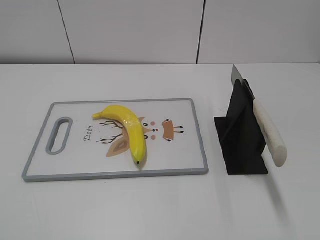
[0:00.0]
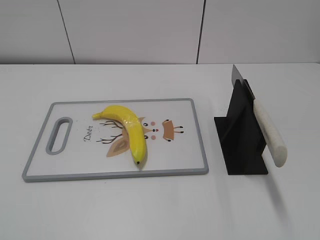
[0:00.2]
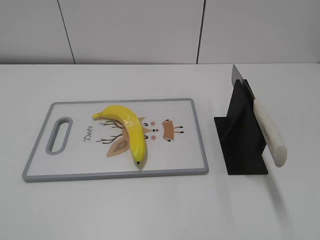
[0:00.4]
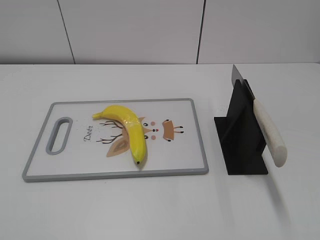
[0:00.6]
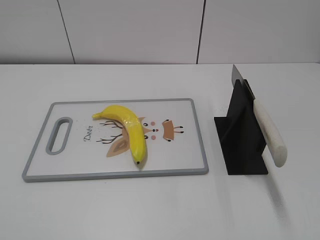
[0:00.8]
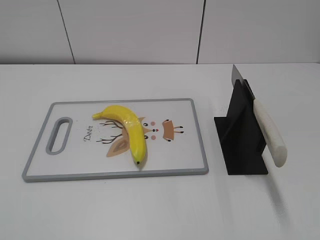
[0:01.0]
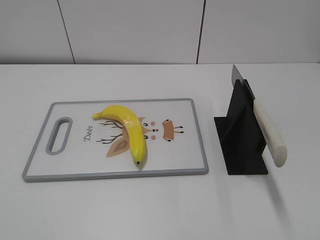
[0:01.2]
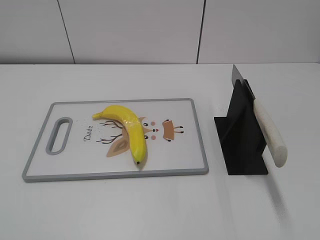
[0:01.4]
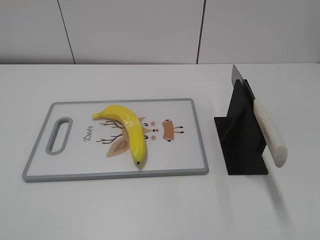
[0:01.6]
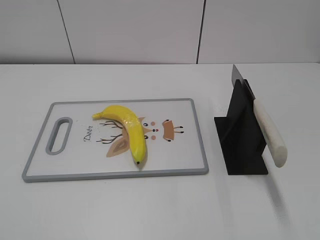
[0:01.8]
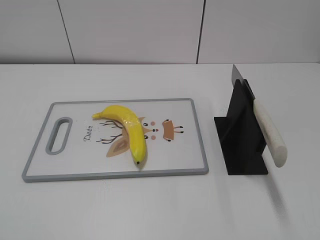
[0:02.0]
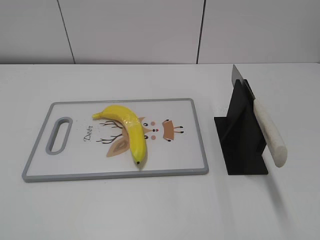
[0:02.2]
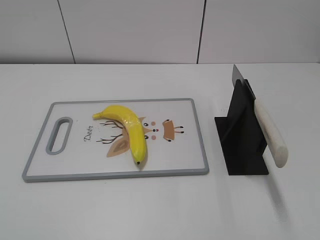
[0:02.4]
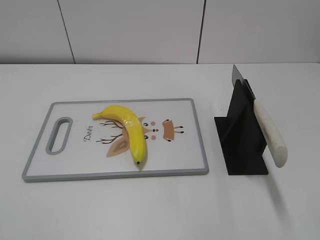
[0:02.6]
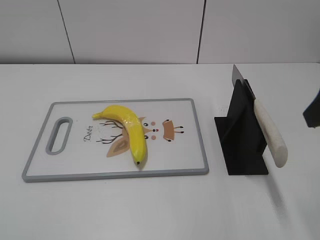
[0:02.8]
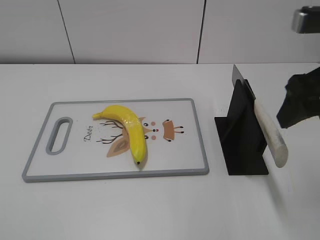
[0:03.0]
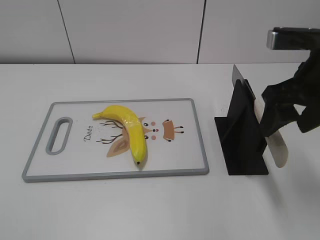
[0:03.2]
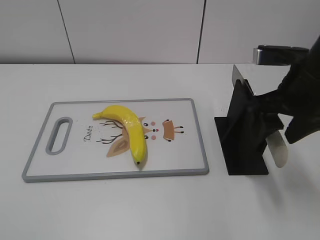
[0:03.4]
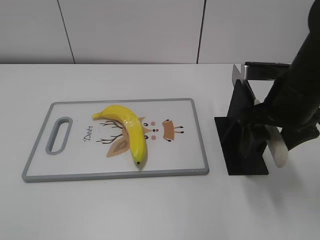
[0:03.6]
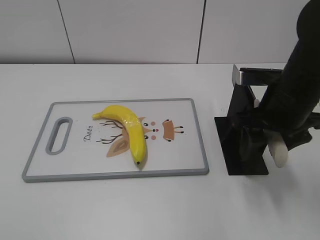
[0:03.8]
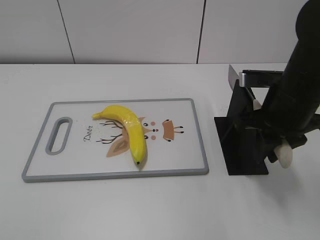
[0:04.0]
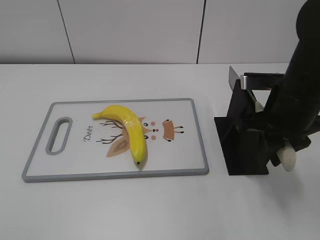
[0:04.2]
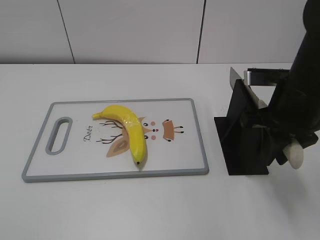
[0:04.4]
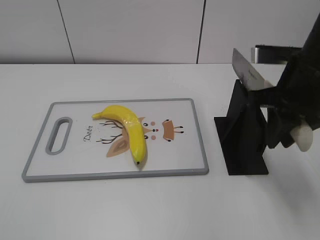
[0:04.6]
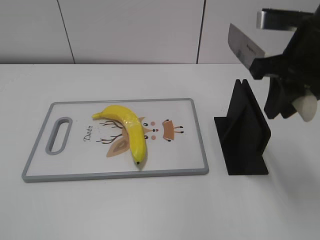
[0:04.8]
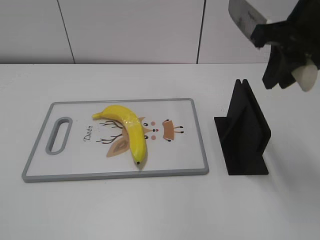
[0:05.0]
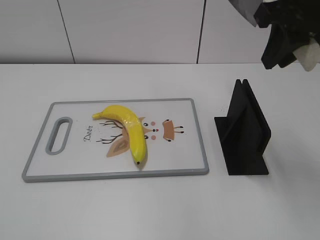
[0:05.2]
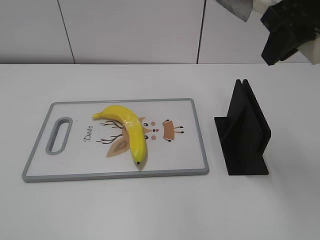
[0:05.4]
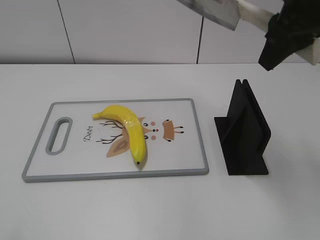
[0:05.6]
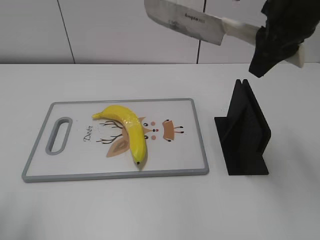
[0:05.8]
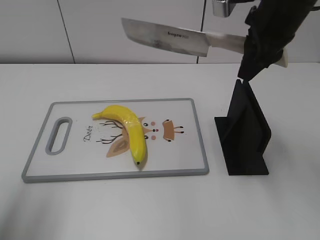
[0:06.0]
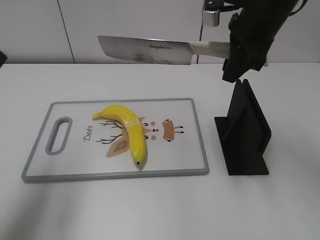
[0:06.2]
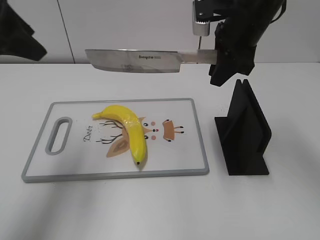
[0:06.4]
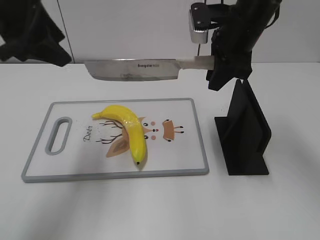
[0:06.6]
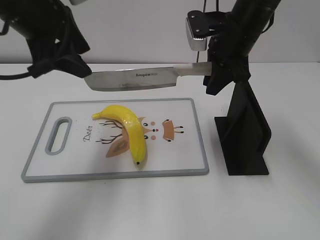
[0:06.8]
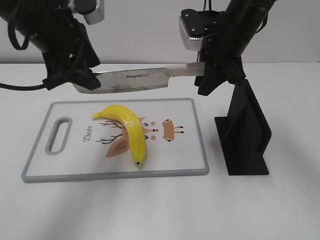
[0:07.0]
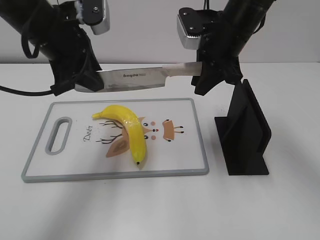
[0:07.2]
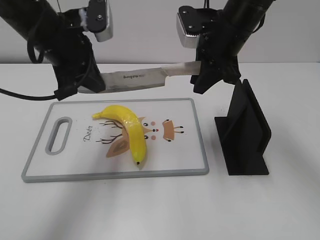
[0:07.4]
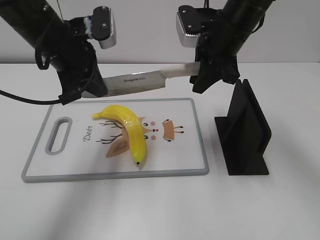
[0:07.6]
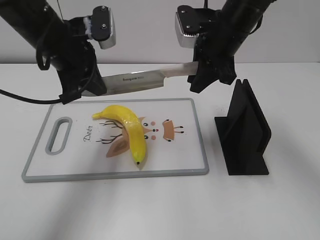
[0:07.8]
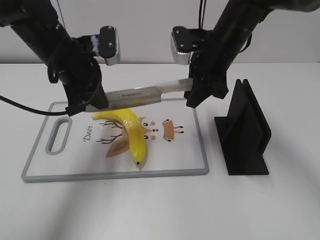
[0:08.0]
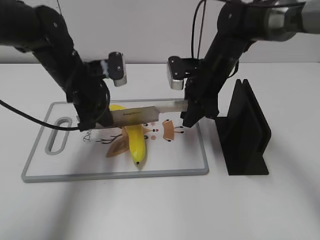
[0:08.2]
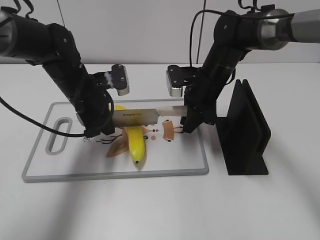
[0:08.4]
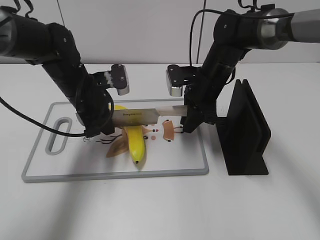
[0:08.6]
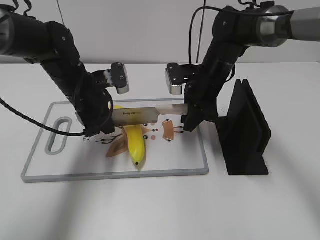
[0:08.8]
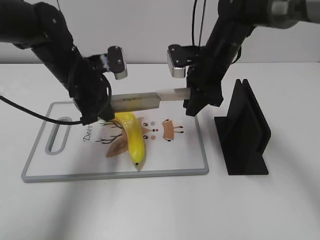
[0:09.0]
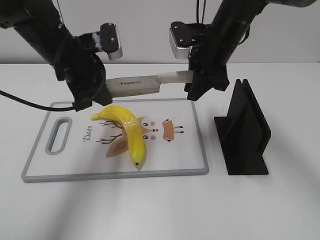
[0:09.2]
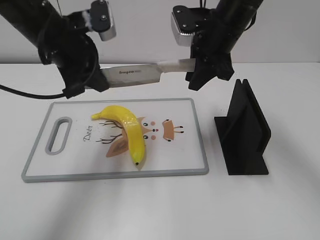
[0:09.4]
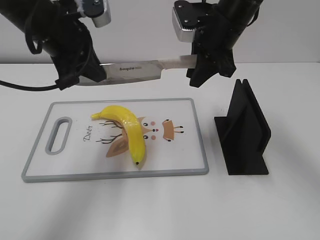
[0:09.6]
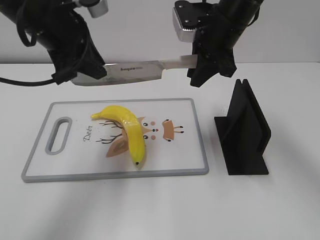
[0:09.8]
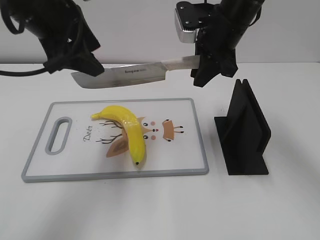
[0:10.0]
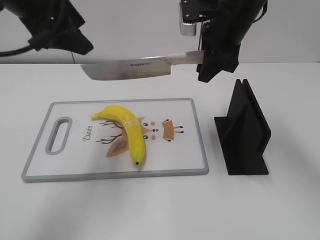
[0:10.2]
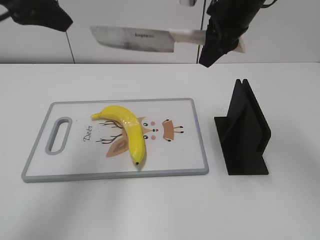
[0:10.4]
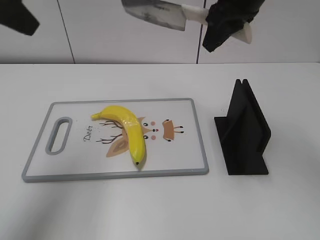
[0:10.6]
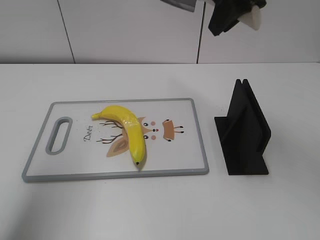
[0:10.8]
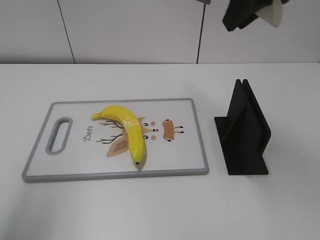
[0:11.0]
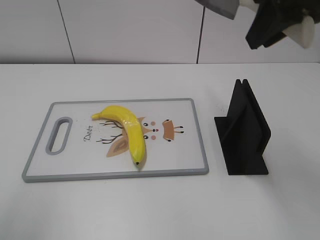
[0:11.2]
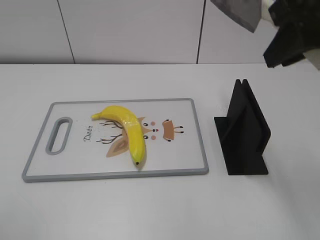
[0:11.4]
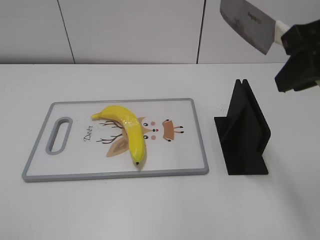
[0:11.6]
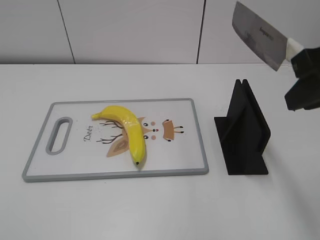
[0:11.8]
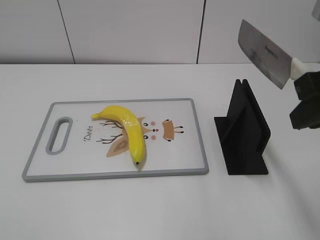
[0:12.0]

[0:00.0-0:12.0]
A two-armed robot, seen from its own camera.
Task of the whole recording: cut plastic banana.
Step, 0:00.0 to 0:04.8: Grab the knife handle with your right hand.
Step, 0:05.2 to 0:09.6: Lift the knife with your right hand.
Step, 0:09.8 to 0:10.8: Cut the banana with your right hand.
0:01.6 to 0:03.0: The right gripper is displaced forward by some 25 cm.
0:03.0 to 0:04.4: The right gripper heads downward, covering approximately 10 cm, and closes its fingers.
0:04.4 to 0:06.0: The right gripper travels upward and forward by roughly 10 cm, while the left gripper is displaced forward by some 20 cm.
0:06.0 to 0:07.6: The left gripper heads forward, to the right and downward, covering approximately 25 cm, and closes its fingers, while the right gripper moves downward, approximately 5 cm.
0:07.6 to 0:09.0: The grippers both shift downward by about 10 cm.
0:09.0 to 0:10.4: The right gripper moves upward, about 10 cm, while the left gripper shifts approximately 20 cm upward, and opens up.
0:10.4 to 0:12.0: The right gripper travels backward and to the right by about 20 cm; the left gripper travels backward by approximately 30 cm.

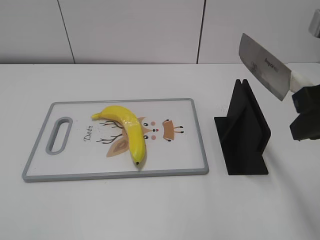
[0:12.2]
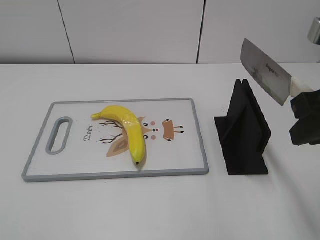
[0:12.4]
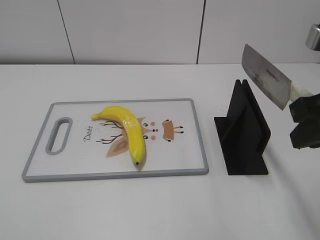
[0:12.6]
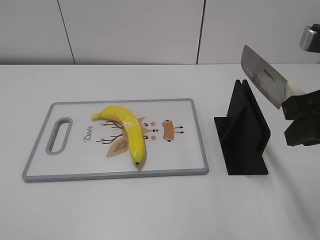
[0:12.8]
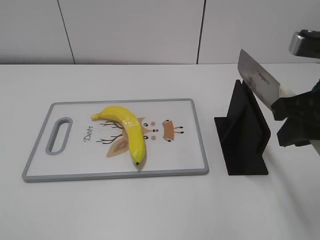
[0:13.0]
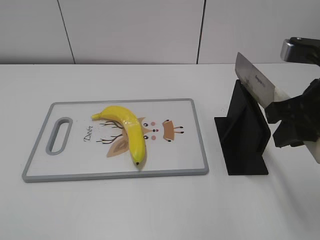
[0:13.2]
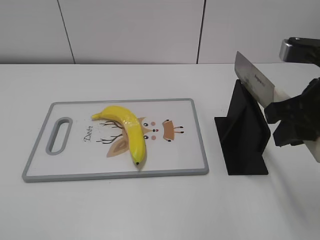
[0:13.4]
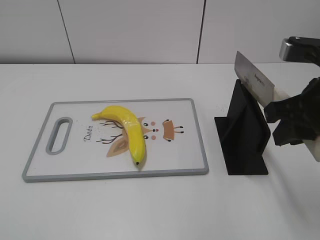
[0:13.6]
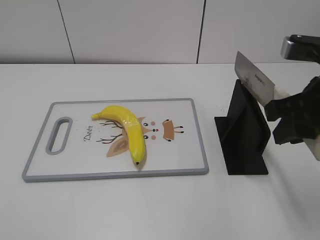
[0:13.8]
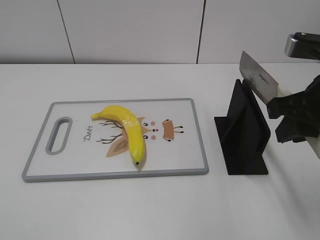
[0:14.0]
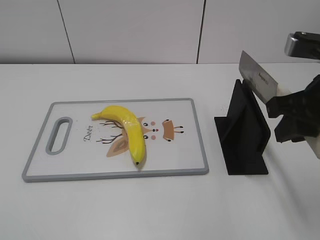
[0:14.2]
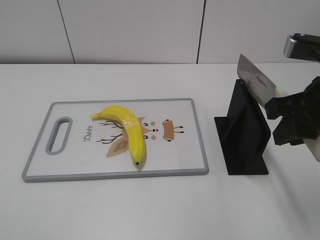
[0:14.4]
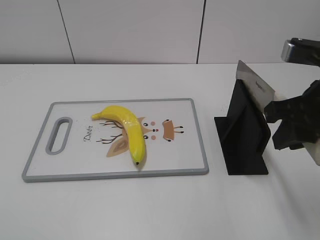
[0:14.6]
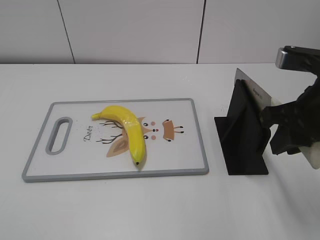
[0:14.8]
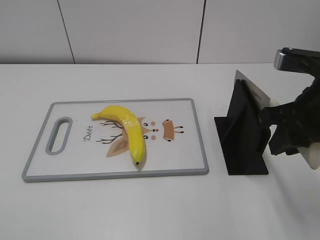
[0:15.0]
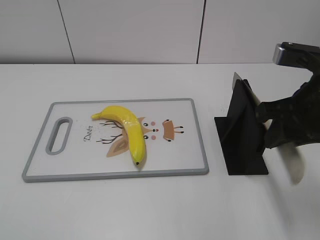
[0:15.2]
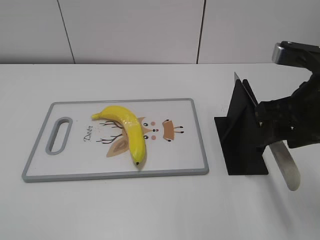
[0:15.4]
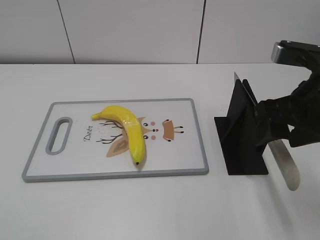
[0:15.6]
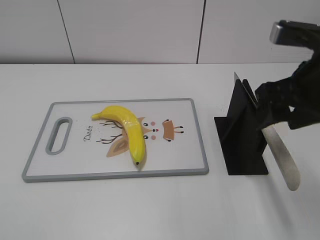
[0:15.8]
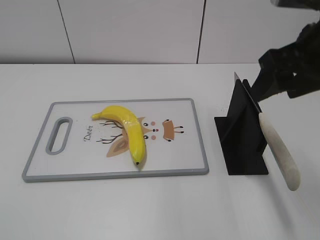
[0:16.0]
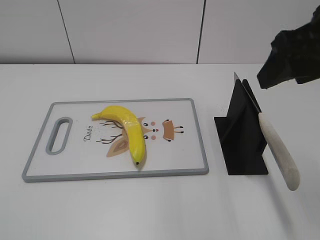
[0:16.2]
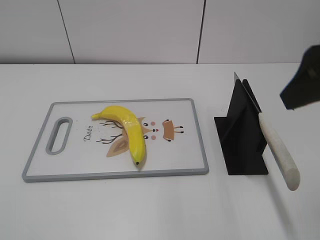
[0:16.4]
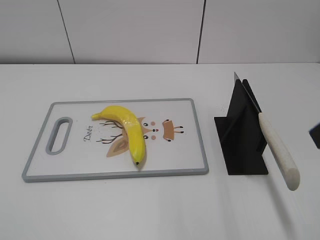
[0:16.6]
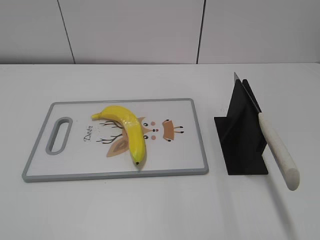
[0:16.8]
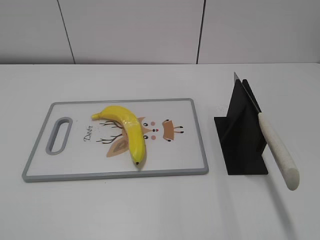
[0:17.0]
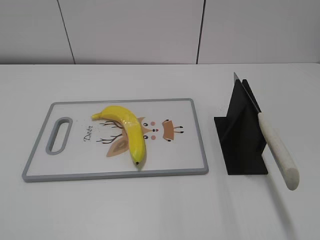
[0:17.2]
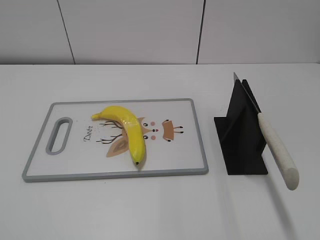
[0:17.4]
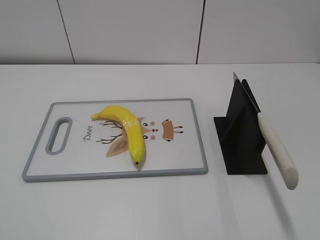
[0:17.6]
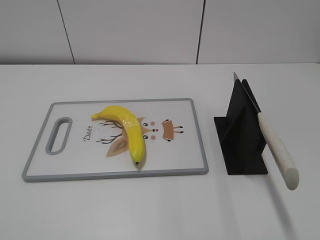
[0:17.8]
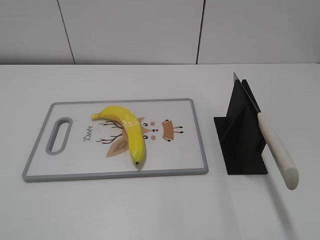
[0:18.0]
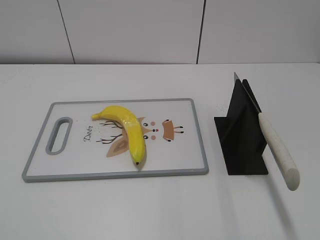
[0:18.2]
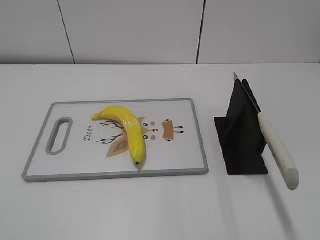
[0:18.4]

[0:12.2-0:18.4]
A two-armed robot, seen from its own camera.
Task of the whole recording: cut plastic banana.
Step, 0:12.4 to 0:18.4: Place the knife on the storage rack with your right hand.
0:12.2 to 0:13.8: The right gripper moves roughly 5 cm.
0:13.8 to 0:15.4: The right gripper opens.
0:15.4 to 0:16.8: The right gripper heads backward, upward and to the right, covering some 15 cm.

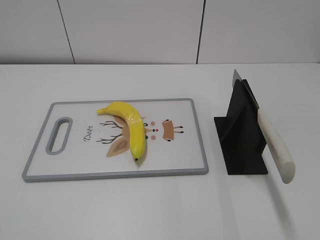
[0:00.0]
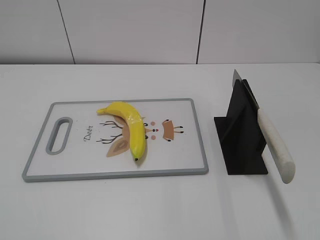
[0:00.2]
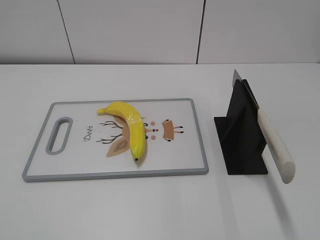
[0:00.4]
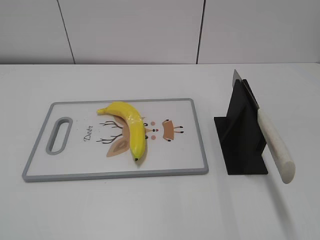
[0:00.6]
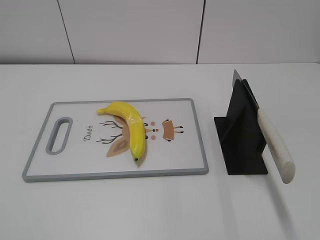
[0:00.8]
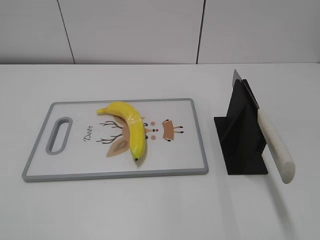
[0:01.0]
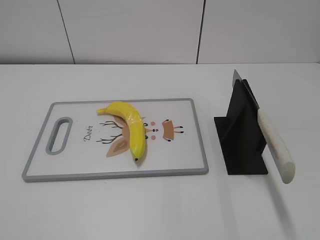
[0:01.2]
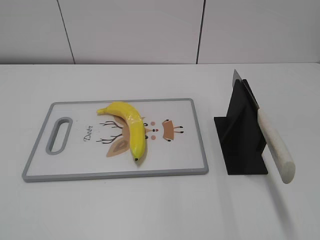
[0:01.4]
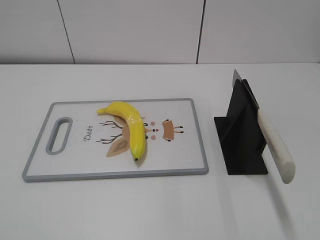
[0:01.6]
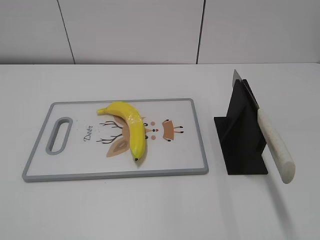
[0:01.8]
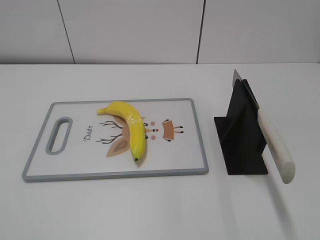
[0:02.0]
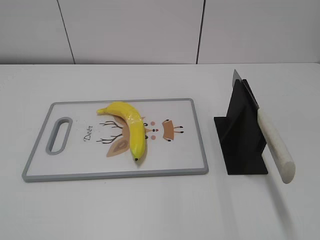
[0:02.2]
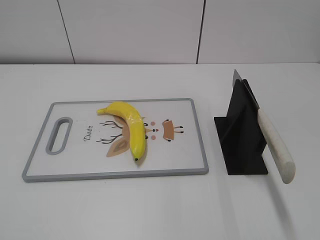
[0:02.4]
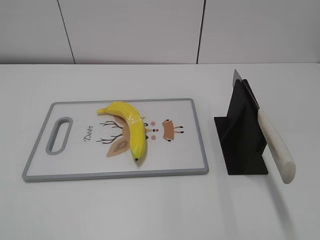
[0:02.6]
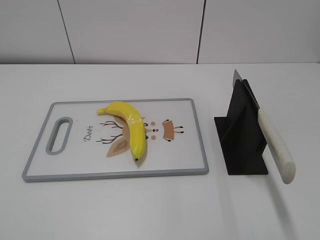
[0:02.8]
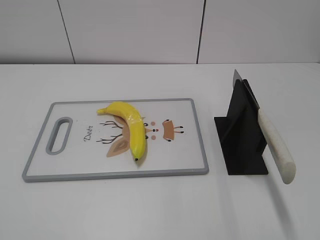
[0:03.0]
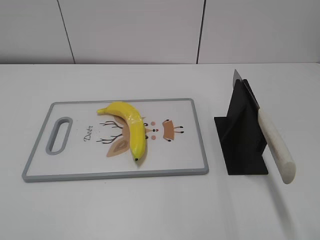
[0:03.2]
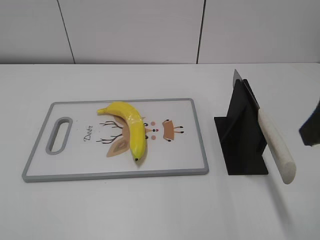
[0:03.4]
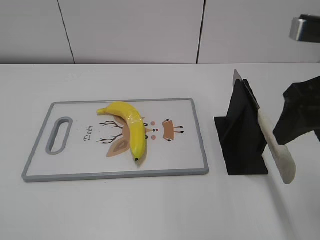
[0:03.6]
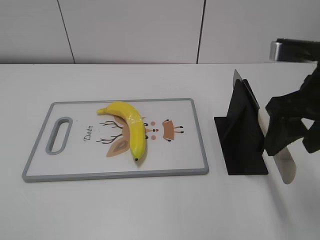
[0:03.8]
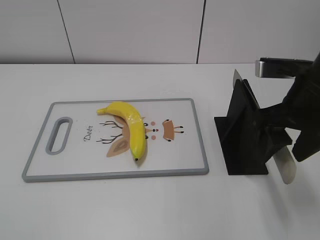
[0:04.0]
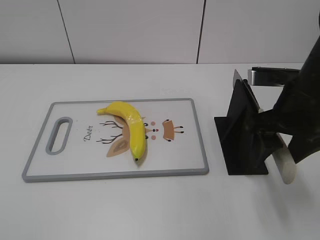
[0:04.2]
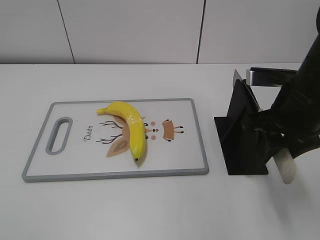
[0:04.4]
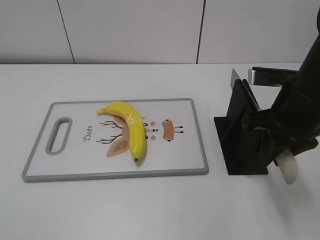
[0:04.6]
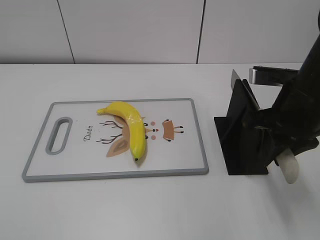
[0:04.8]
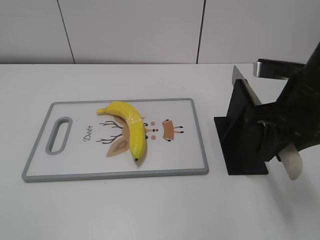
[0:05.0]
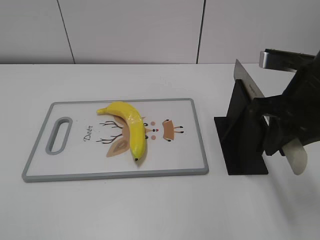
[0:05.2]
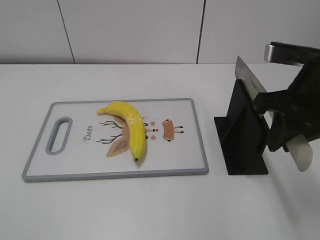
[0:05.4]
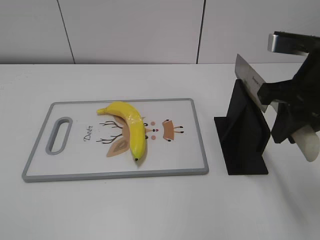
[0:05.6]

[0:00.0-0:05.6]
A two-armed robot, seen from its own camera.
Task of the whole recording: cut plastic banana.
Step, 0:00.0 to 0:05.4: Grab the knife handle with your right hand.
0:02.8 to 0:04.2: The right gripper is displaced forward, downward and to the left by approximately 20 cm.
0:04.2 to 0:05.6: The right gripper shifts by roughly 5 cm, and closes.
